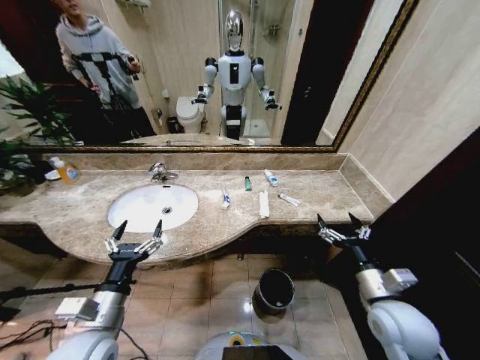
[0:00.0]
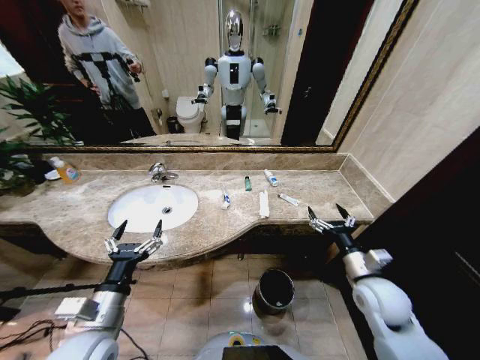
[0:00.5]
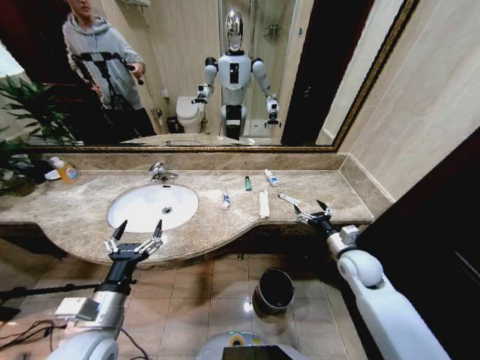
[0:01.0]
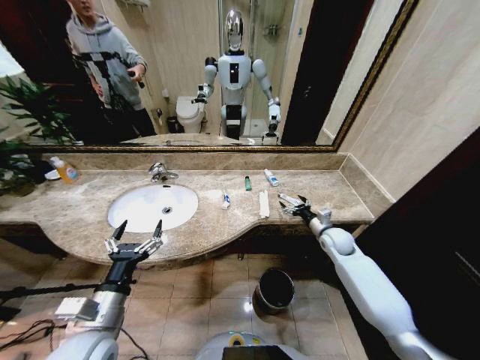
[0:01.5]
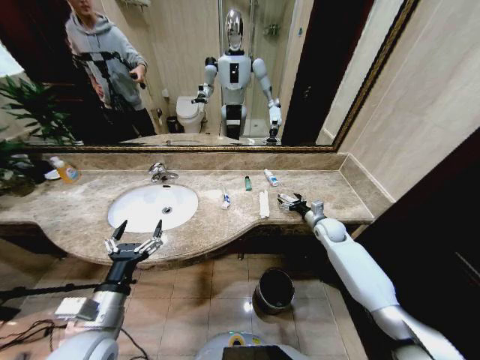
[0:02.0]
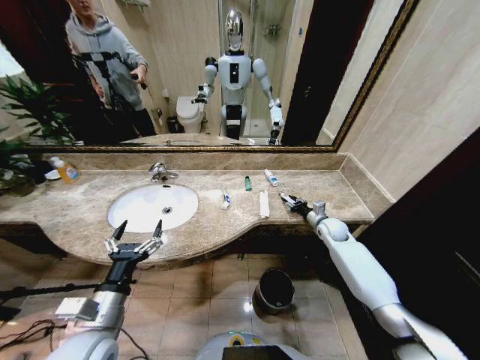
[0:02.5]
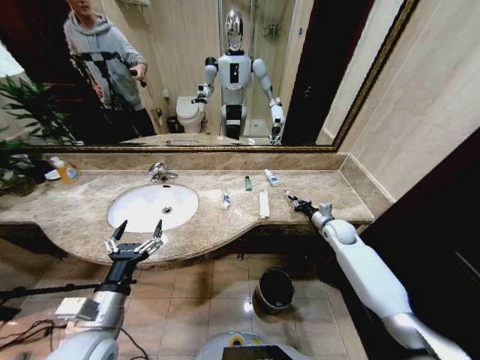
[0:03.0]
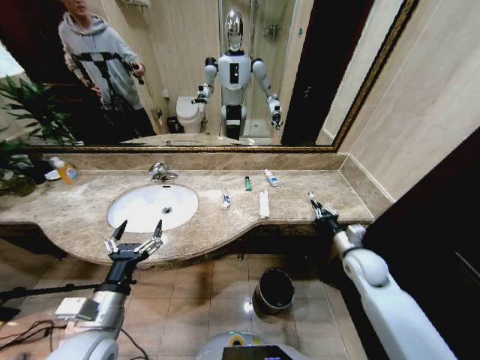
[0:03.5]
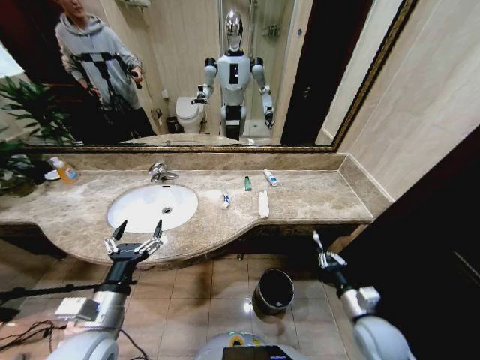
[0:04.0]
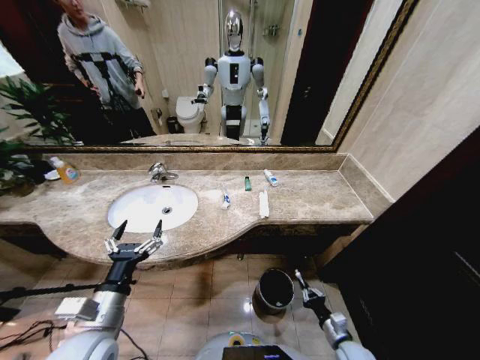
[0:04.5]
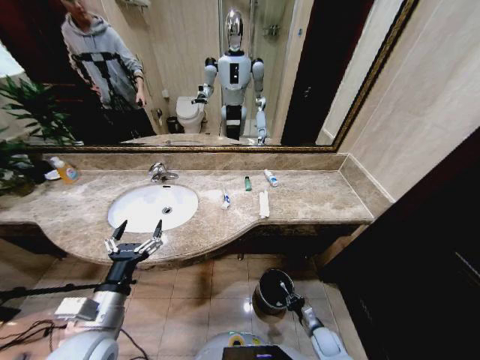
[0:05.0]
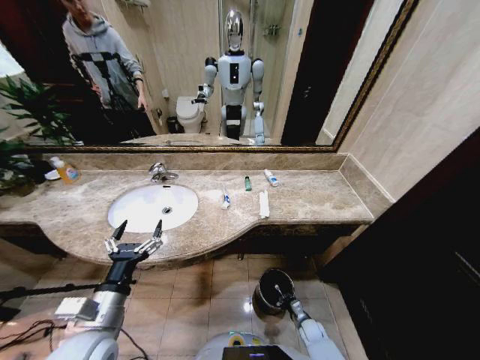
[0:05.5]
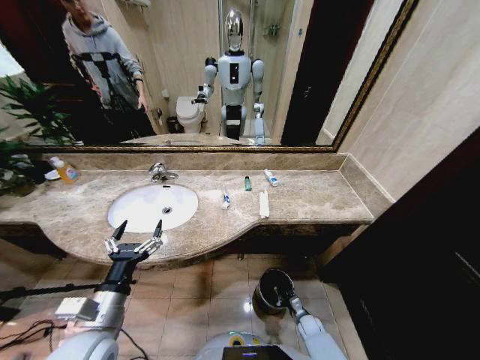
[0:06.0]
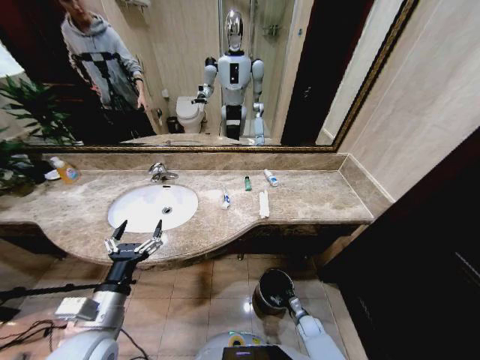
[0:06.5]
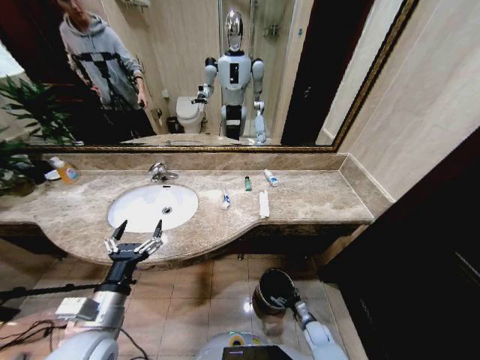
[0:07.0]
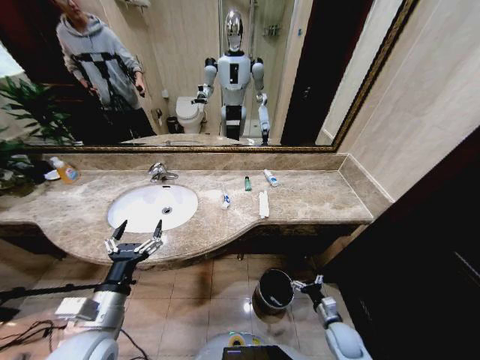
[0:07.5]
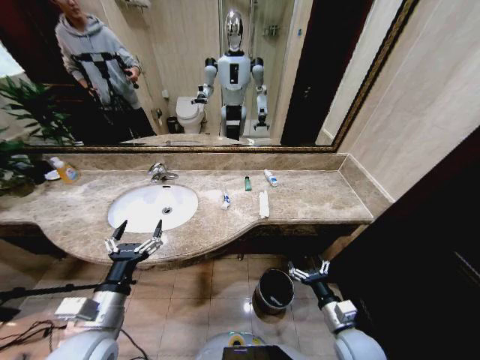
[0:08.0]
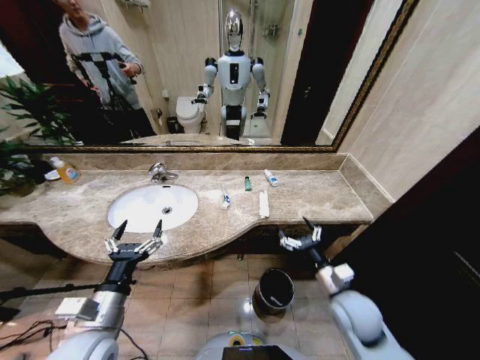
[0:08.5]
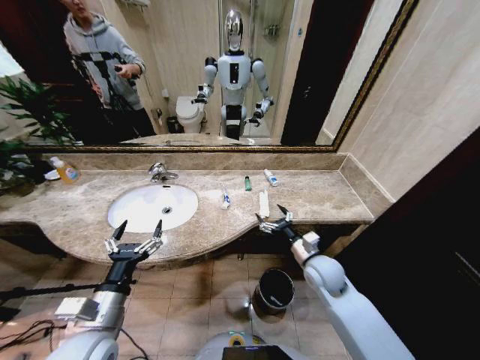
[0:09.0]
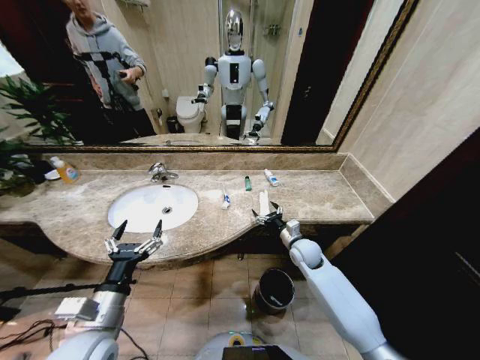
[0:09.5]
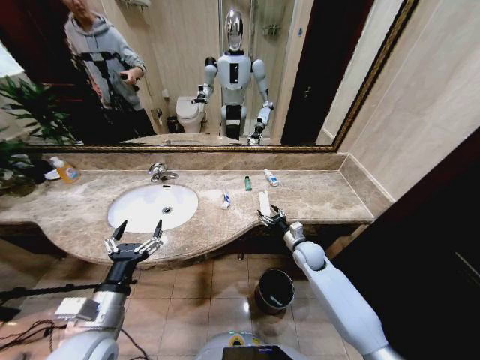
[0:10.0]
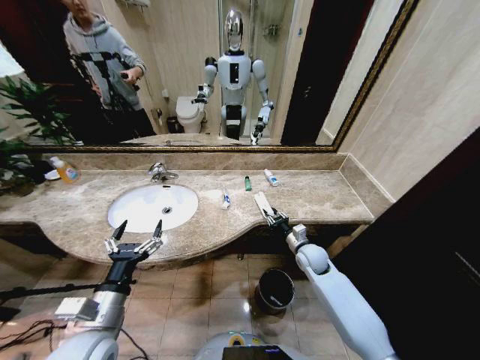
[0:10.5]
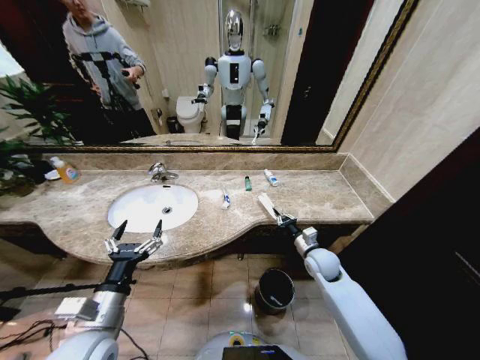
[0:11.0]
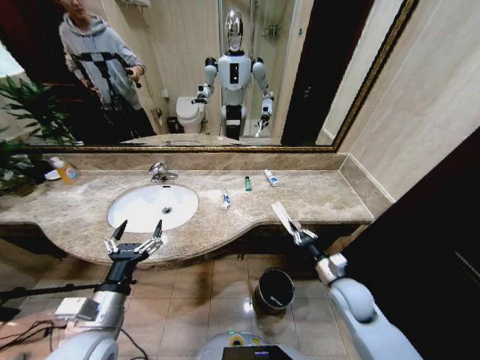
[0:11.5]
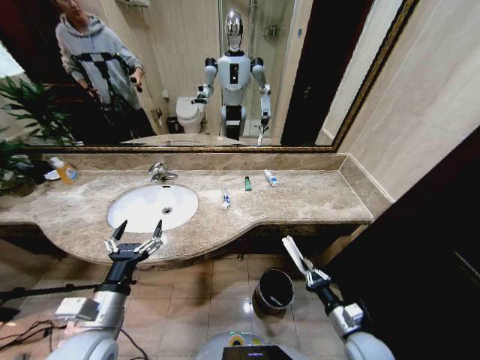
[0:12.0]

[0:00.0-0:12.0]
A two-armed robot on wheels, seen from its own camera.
Task of the whole recording: Pick up the trash from the sink and place it in the trash bin.
2.0 to 4.0 s: The right gripper shifts some 30 cm backward, and closes up.
4.0 to 6.0 s: The right gripper goes some 30 cm downward.
6.0 to 8.0 s: The right gripper travels upward by roughly 30 cm, and opens.
8.0 to 10.0 s: The right gripper is displaced forward by about 25 cm.
10.0 to 12.0 s: The right gripper shifts approximately 25 cm backward, and closes its fingers.

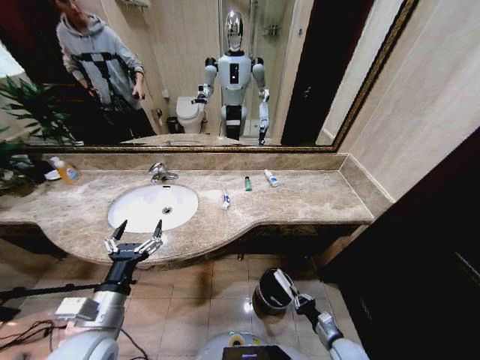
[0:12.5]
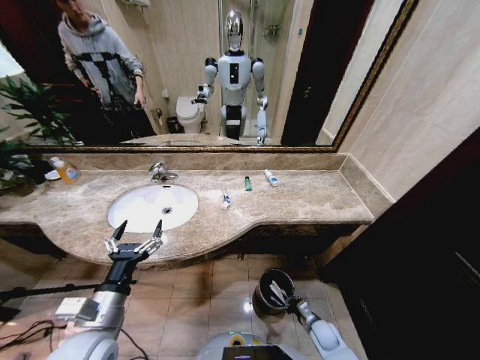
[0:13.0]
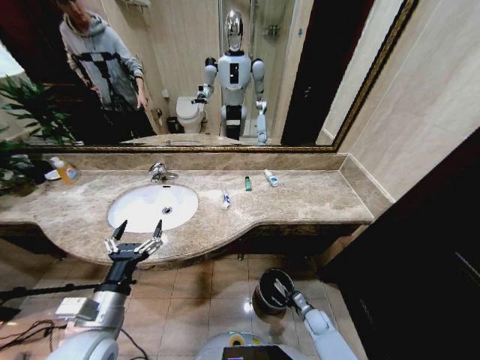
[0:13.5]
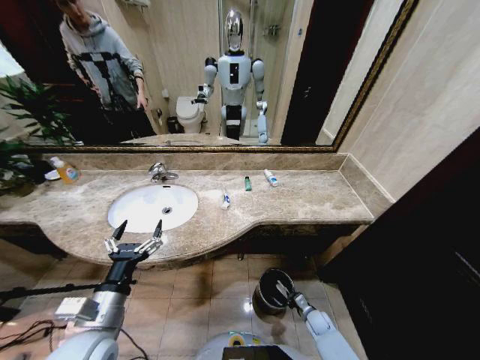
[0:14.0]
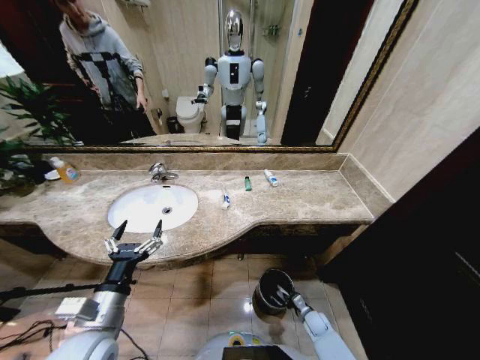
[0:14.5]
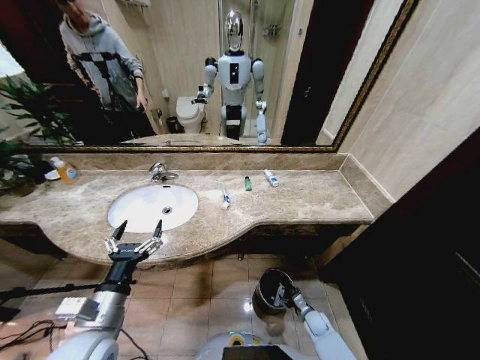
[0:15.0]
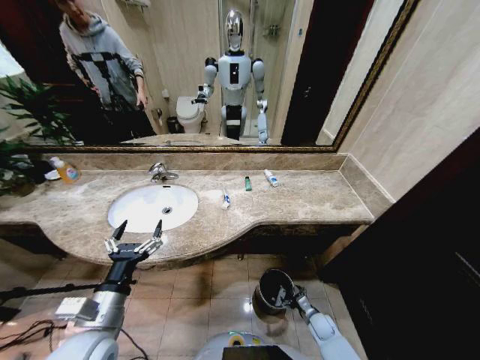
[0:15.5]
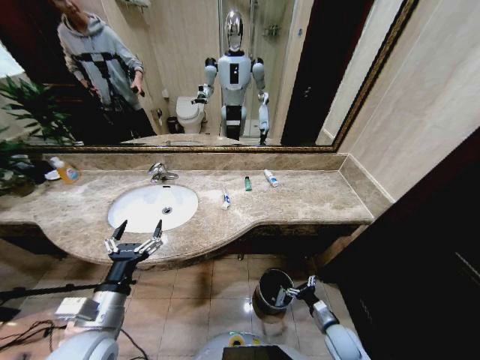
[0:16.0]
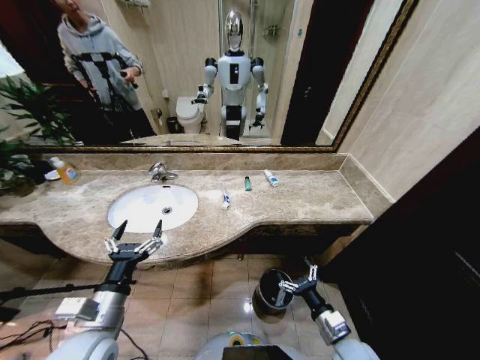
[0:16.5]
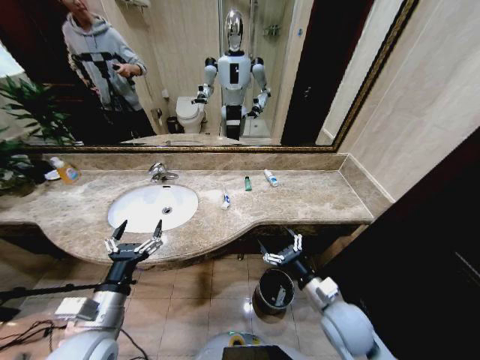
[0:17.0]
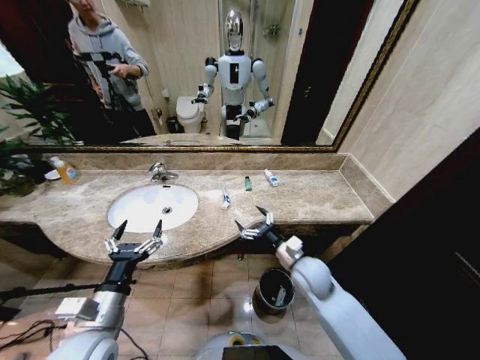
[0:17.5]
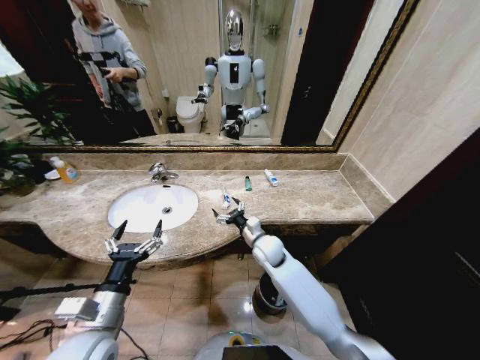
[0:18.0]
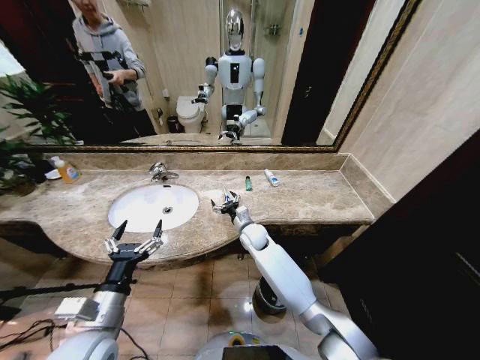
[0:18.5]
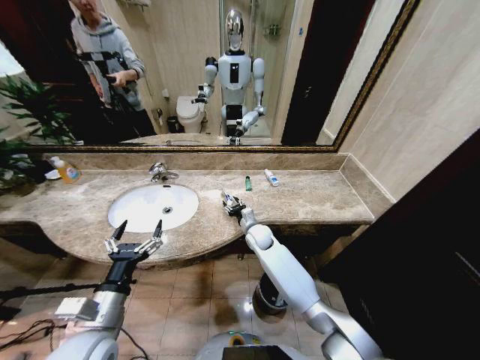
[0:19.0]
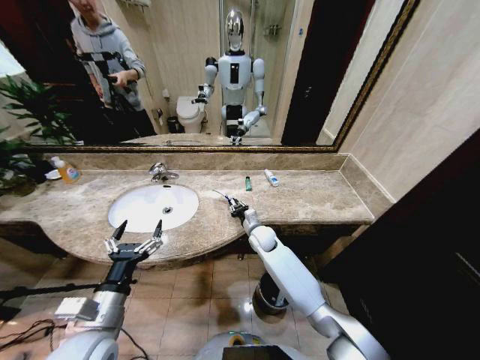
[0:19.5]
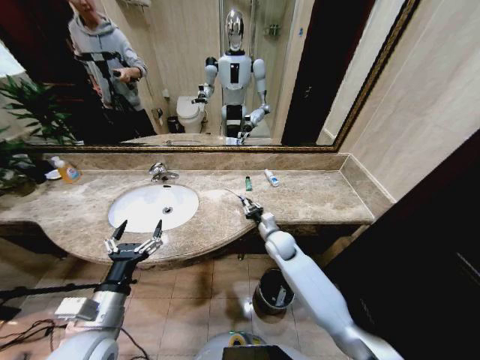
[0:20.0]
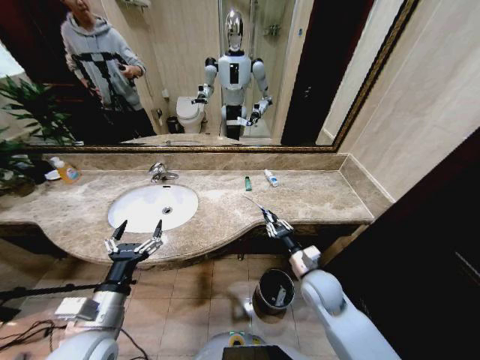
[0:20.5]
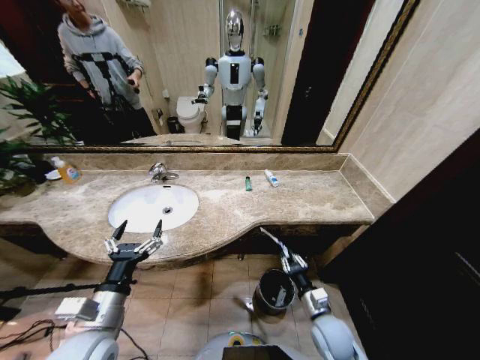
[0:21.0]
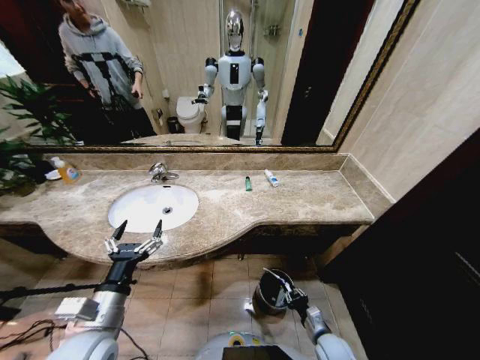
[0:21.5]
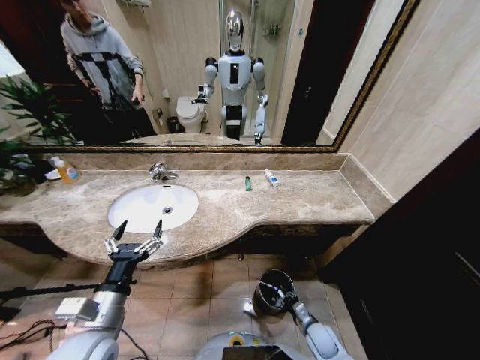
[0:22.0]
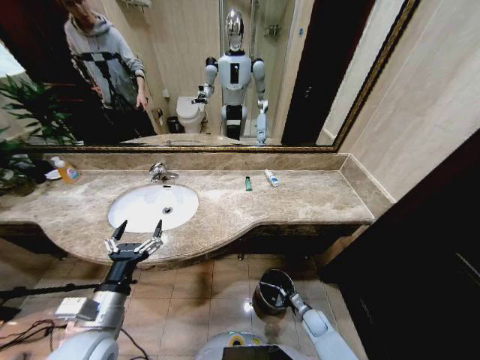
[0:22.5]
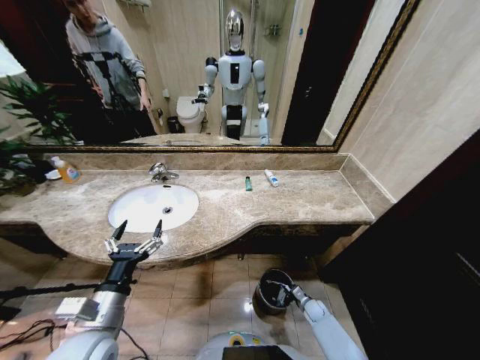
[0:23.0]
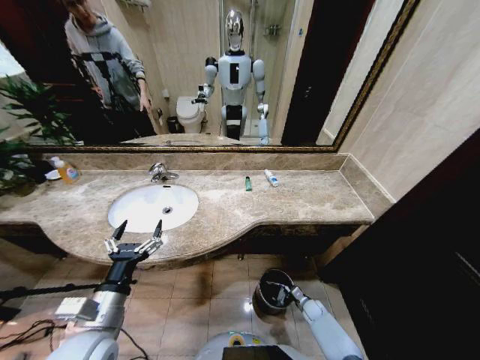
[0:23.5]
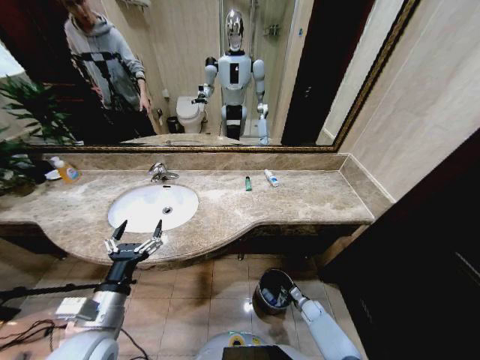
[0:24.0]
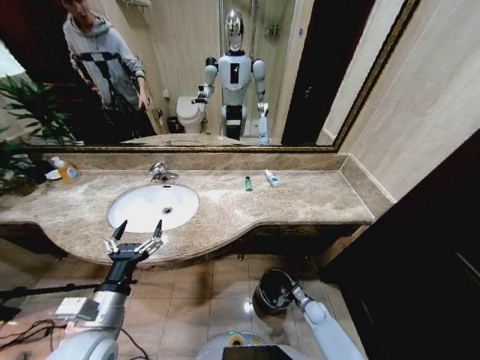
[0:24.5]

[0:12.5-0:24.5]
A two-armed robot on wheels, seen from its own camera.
Task of the whole recording: Pick up the trash from the sink and place it in the trash bin.
12.5 to 14.5 s: The right gripper moves downward and forward, some 15 cm.
14.5 to 16.5 s: The right gripper goes about 25 cm upward and backward, and opens its fingers.
16.5 to 18.5 s: The right gripper moves forward and to the left, approximately 40 cm.
18.5 to 20.5 s: The right gripper shifts approximately 25 cm backward and to the right, and closes.
20.5 to 22.5 s: The right gripper travels downward by about 30 cm.
22.5 to 24.5 s: The right gripper opens up.

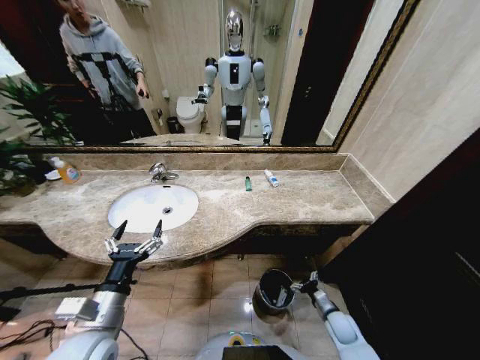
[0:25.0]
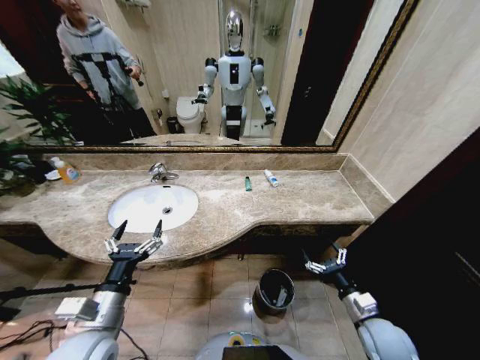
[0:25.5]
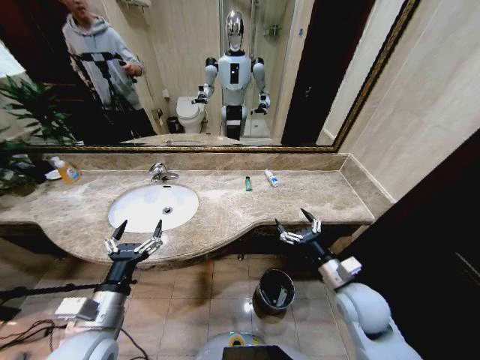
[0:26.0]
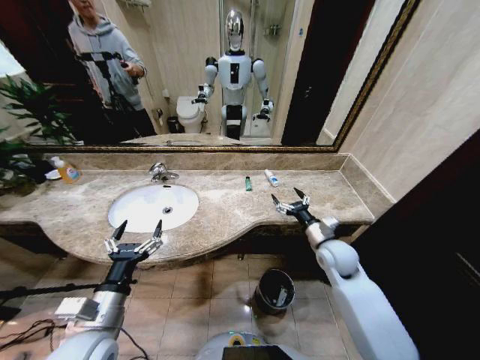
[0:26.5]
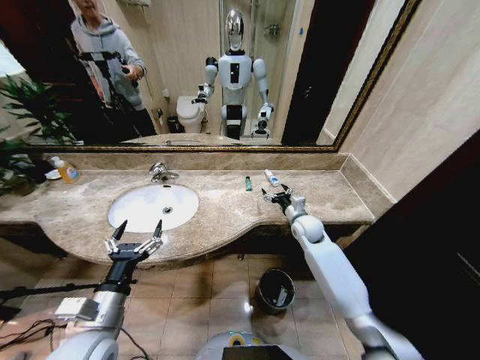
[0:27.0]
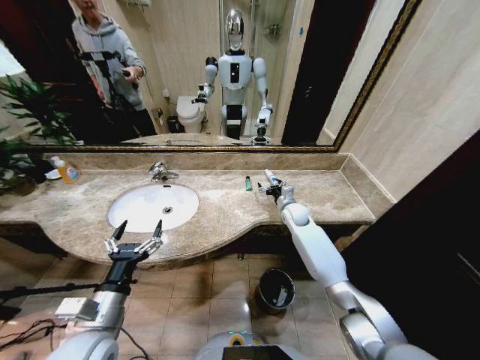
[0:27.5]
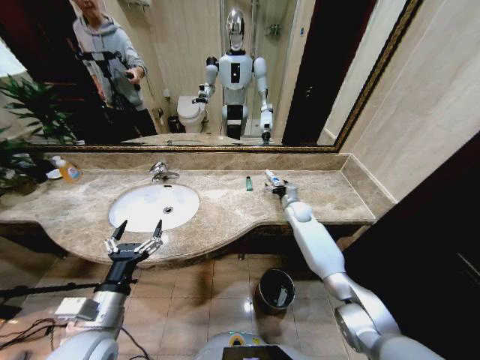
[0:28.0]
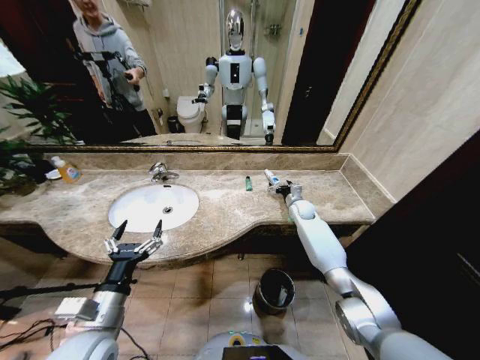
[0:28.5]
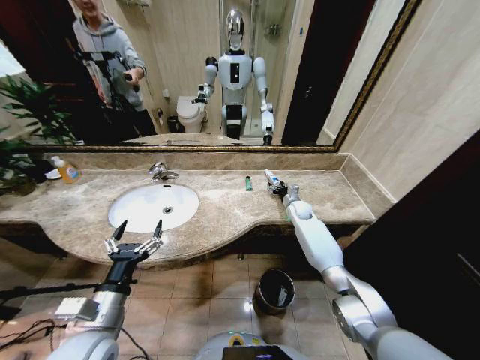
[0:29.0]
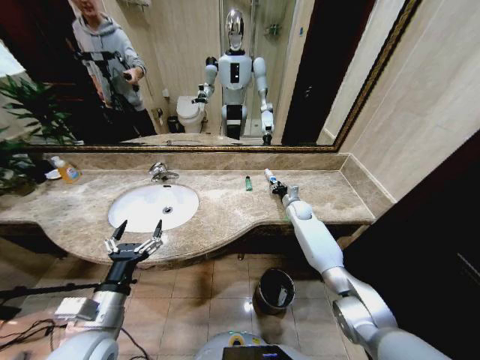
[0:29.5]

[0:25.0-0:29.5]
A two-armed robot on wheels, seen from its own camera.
Task of the whole recording: Pick up the trash from the sink and place it in the trash bin.
25.0 to 27.0 s: The right gripper is displaced upward, forward and to the left by some 35 cm.
27.0 to 29.5 s: The right gripper shifts about 10 cm forward, and closes.
